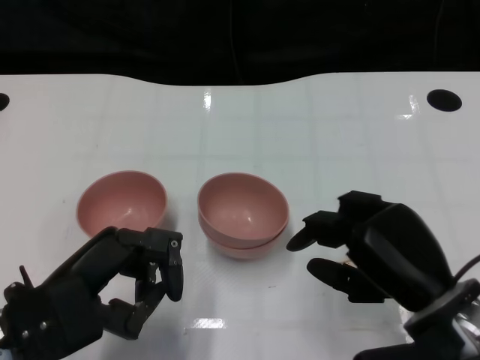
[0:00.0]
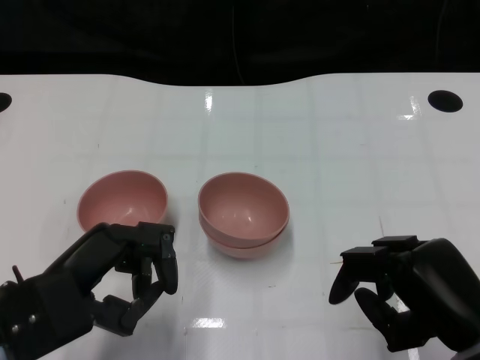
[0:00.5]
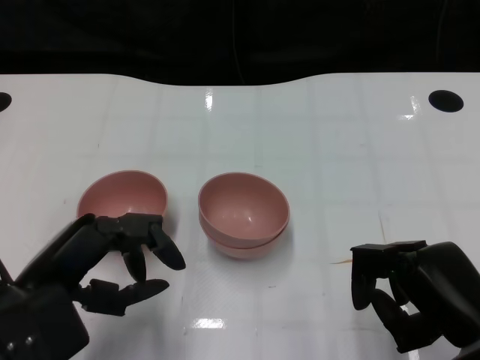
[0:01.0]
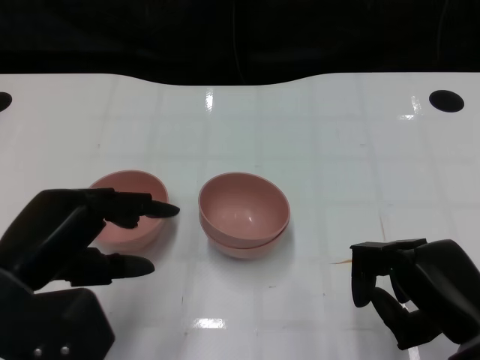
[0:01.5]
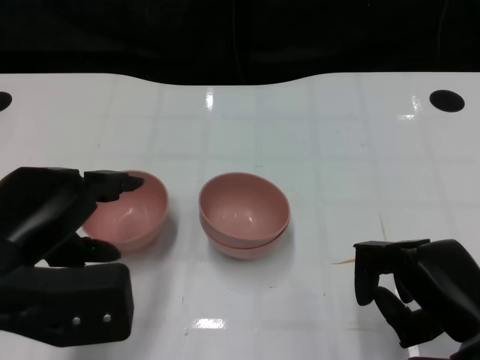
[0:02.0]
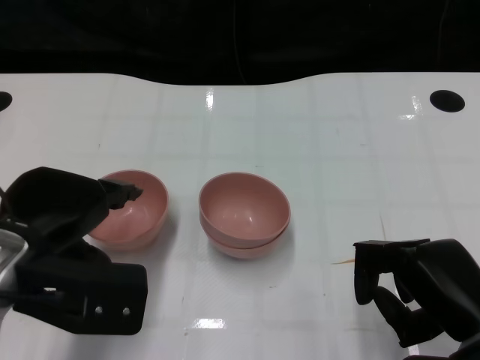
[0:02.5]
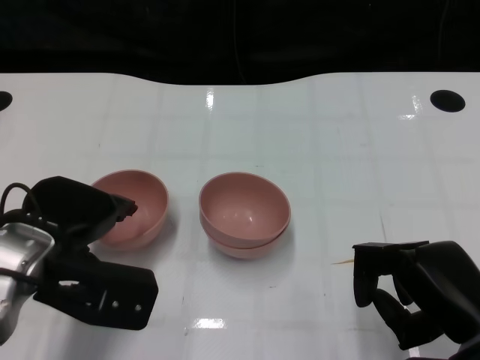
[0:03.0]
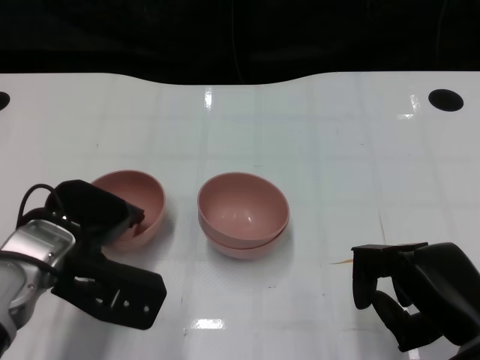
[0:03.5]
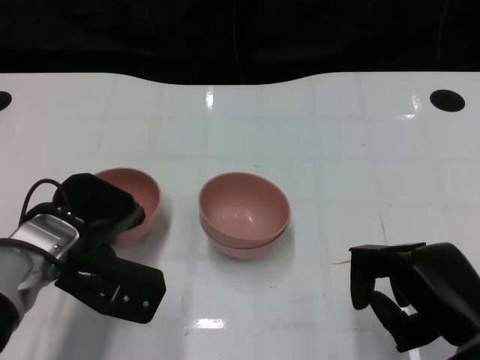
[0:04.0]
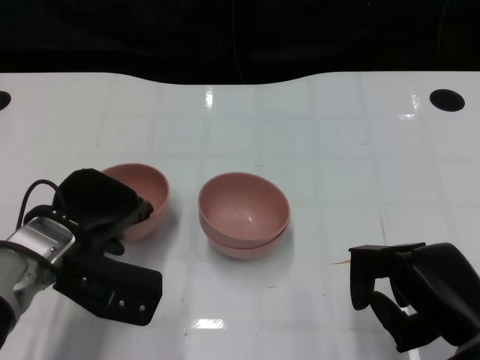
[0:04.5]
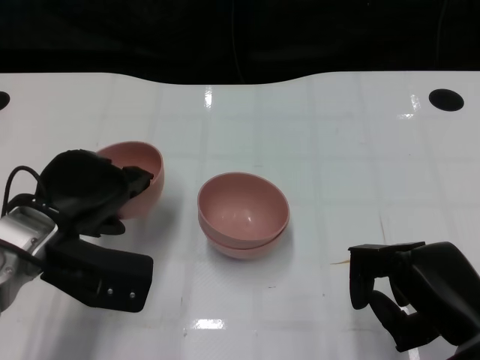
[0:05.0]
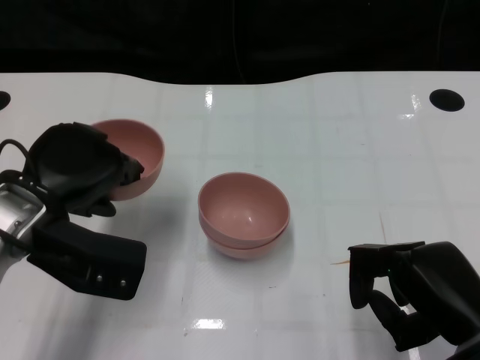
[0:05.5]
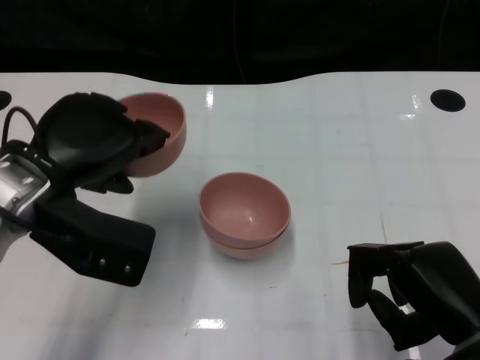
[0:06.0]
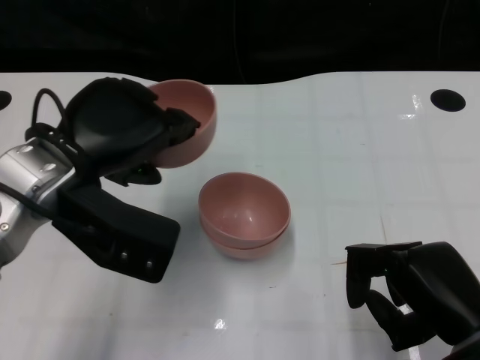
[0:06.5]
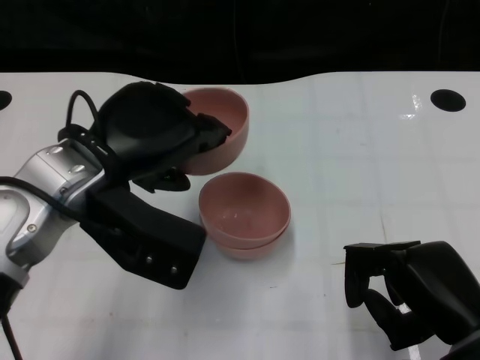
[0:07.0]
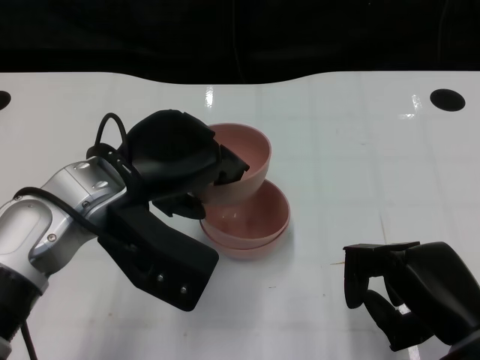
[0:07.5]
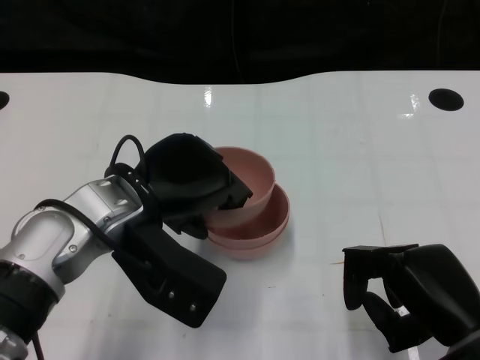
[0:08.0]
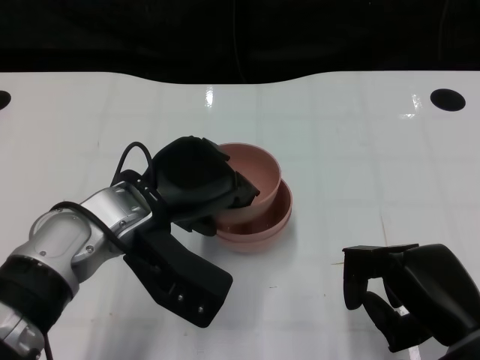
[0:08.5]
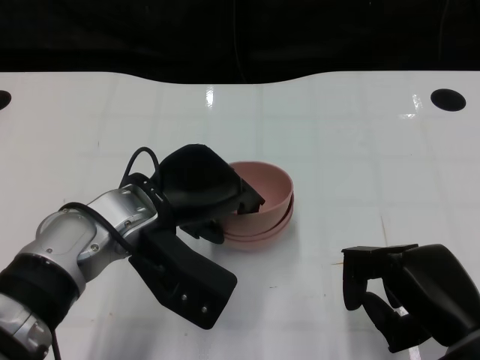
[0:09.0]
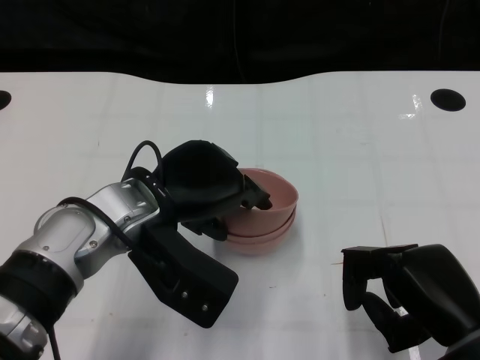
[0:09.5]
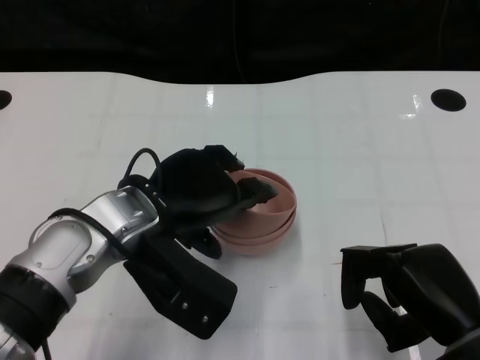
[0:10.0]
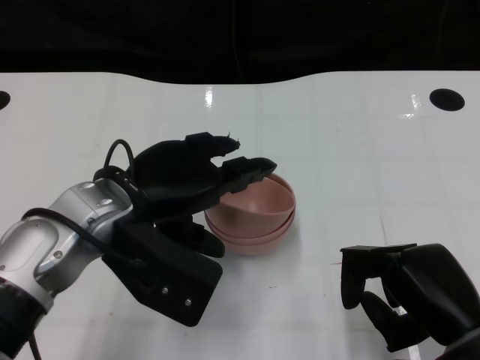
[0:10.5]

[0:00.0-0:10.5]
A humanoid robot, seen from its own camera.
Task of the whole recording: Pick up the bowl on one side of the table and place it on top of the middle bowl, then pick up the bowl on the other side of the table and place it on top of the middle bowls.
Step, 0:00.0 to 0:04.0: Grasp the bowl on the left with the left gripper.
0:00.0 to 0:02.0: The left hand goes approximately 5 cm upward, while the right hand moves roughly 5 cm.
0:02.0 to 0:04.0: The left hand heads forward and downward, covering approximately 10 cm.
0:04.0 to 0:06.5: The left hand shifts some 10 cm upward.
0:06.5 to 0:08.5: The left hand shifts roughly 10 cm downward and to the right.
0:08.5 to 0:10.5: There are only small adjustments of the hands.

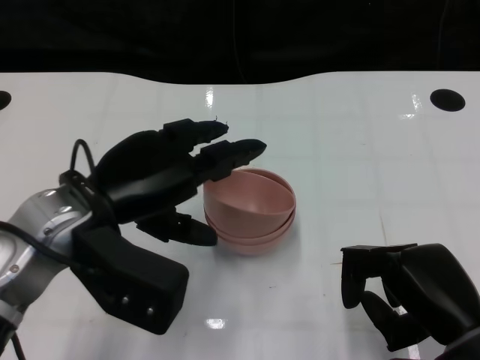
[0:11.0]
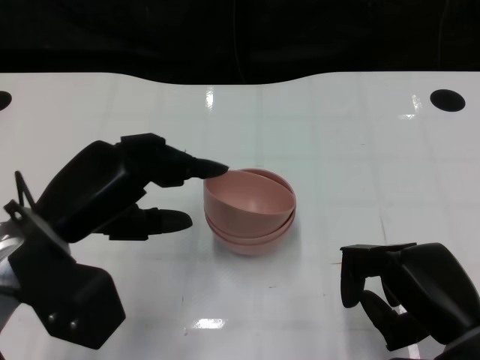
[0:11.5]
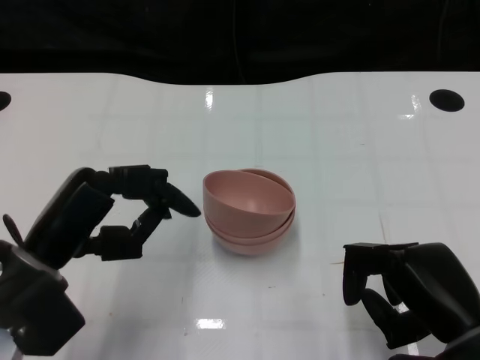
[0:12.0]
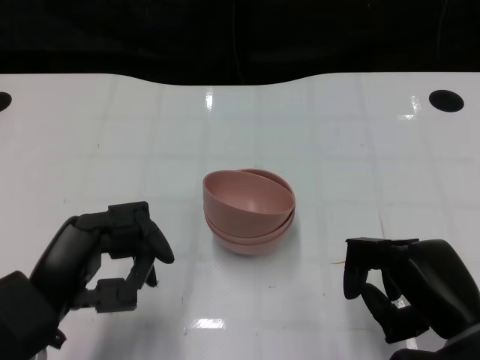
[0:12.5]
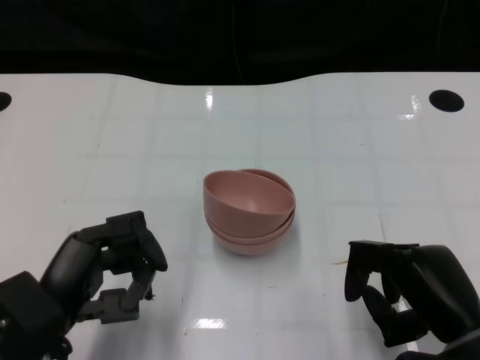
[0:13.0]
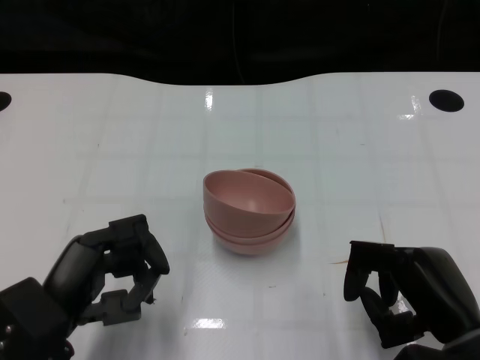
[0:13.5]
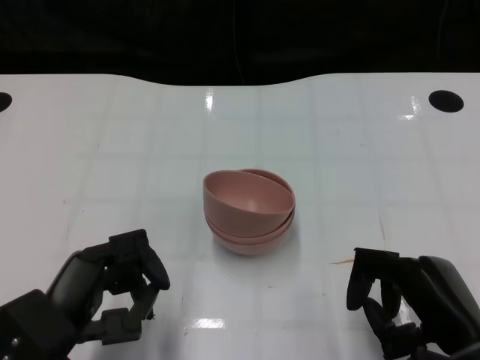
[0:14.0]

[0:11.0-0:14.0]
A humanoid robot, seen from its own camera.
Task of the whole recording: Pick up the bowl on one side of the table and place it on top of the middle bowl, then pick up the bowl on the other side of the table and place it on top of the middle bowls.
0:11.0 to 0:12.5: The left hand travels backward, downward and to the left by about 10 cm.
0:12.5 to 0:14.0: The hands make only small movements.
